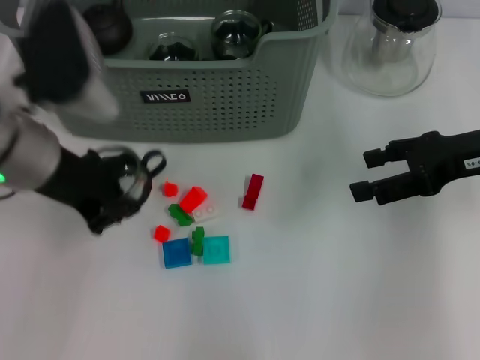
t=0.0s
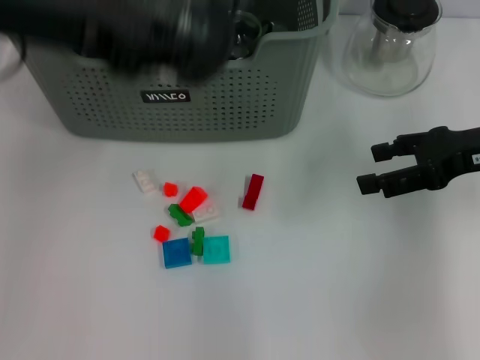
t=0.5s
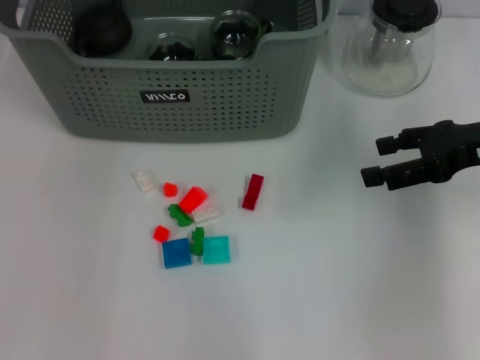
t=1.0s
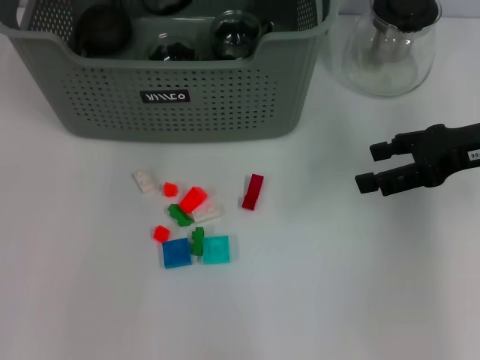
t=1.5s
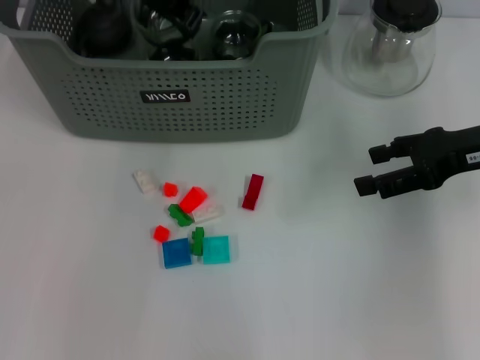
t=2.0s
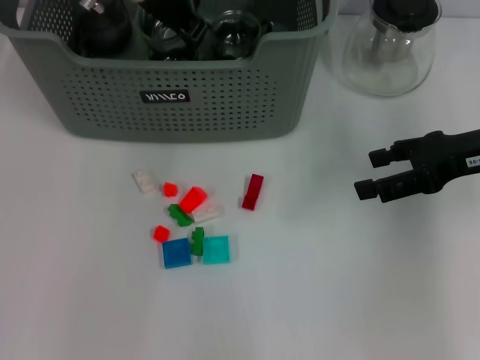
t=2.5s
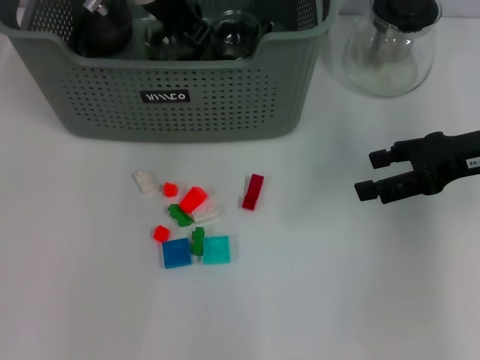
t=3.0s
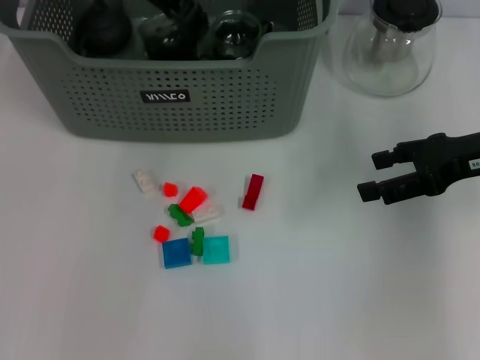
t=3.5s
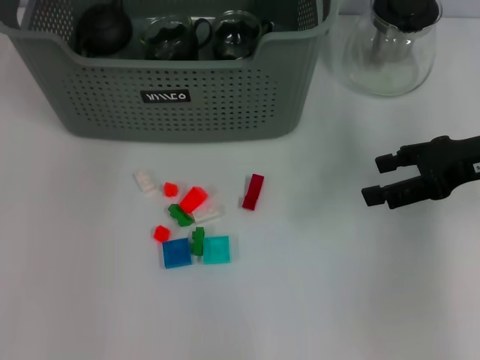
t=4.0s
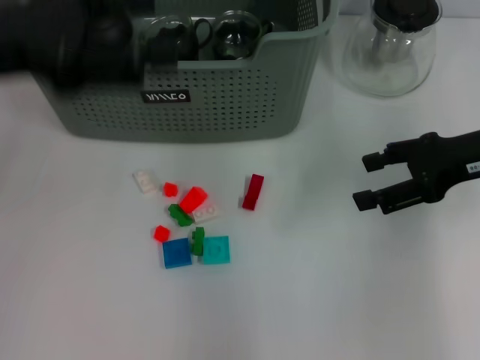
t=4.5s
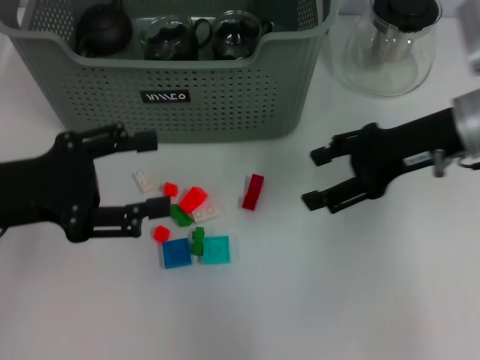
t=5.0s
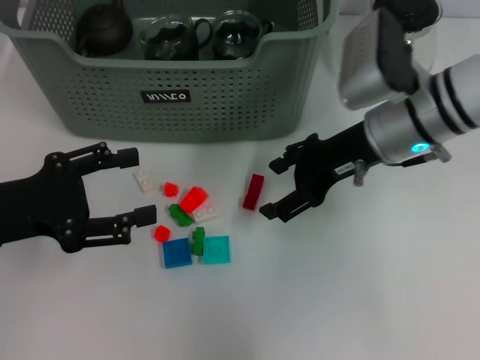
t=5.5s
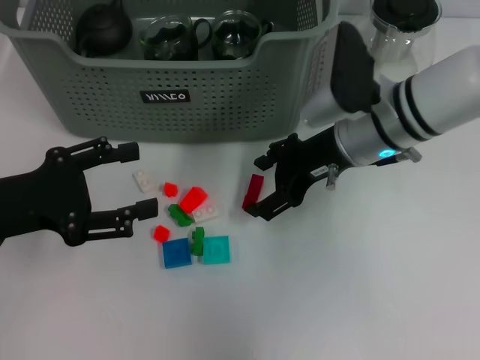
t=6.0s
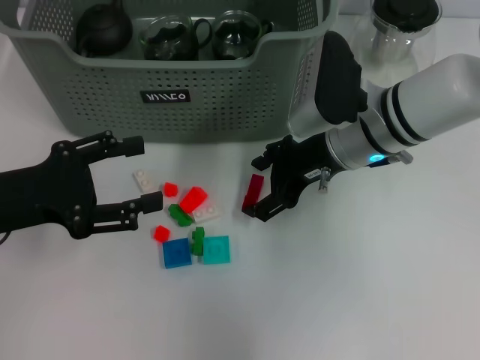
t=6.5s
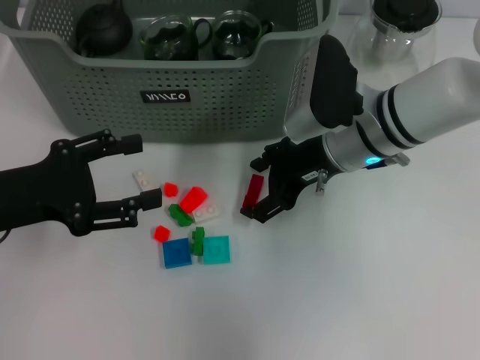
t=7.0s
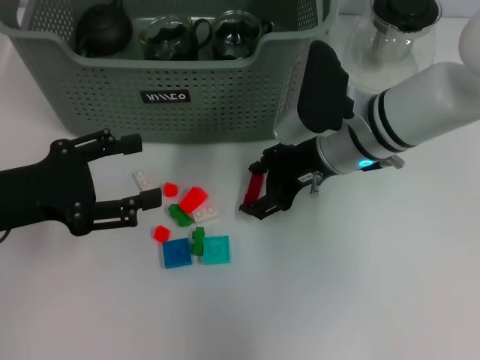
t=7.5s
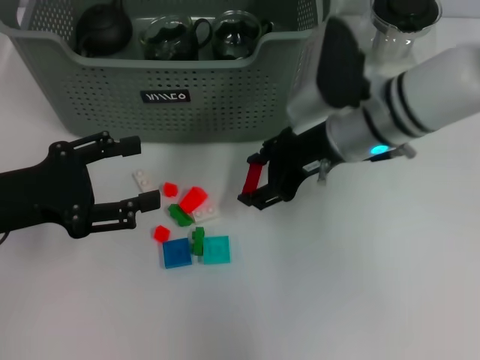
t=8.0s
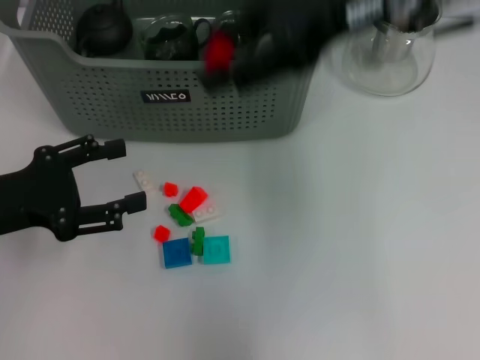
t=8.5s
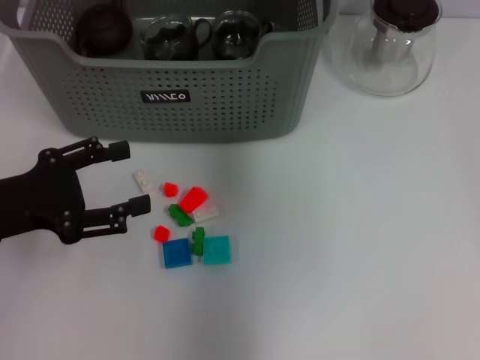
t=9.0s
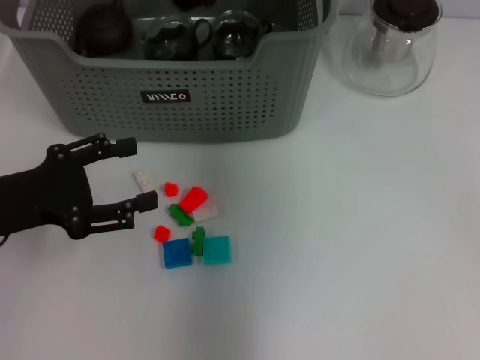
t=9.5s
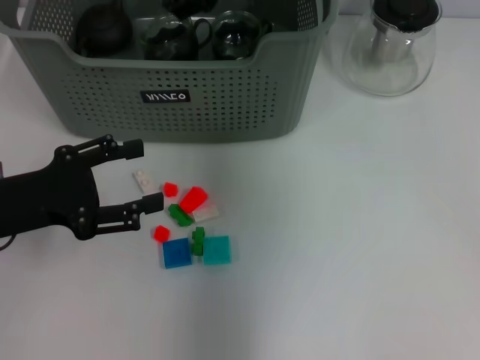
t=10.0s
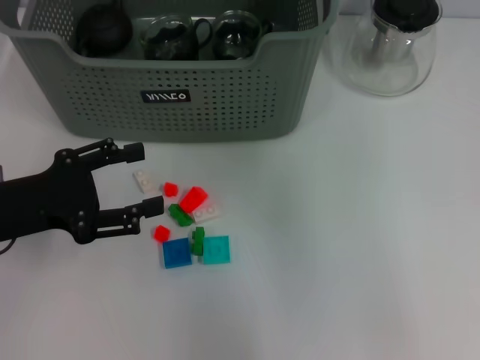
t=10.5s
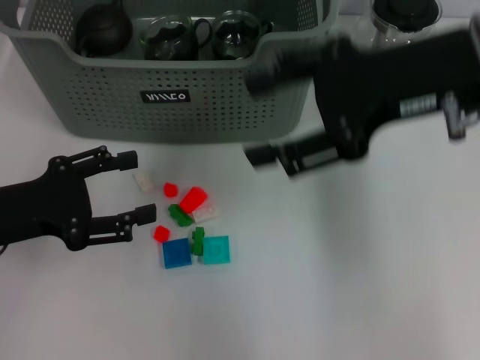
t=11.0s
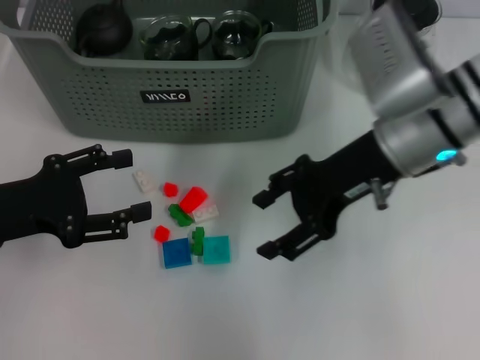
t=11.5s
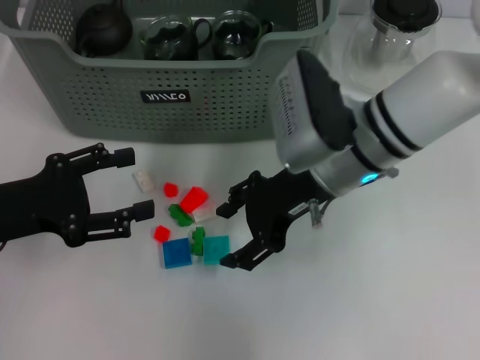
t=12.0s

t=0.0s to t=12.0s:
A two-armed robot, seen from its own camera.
Task of the whole recording: pick up the teacup on the table and place it into the storage bin, pick up the block on the table and place it into the storage bin.
Step, t=0.0s to t=3.5s: Place the cup in the storage box with left gripper.
Step, t=4.0s to t=7.5s: Grasp the red block with right gripper.
Step, t=8.0s to t=10.0s: Place the red block in the storage box with right gripper.
t=0.0s to t=2.0s: The left gripper moves forward and to the right, approximately 20 cm.
t=2.0s to t=4.0s: The left gripper is displaced to the left and upward by approximately 10 cm, and opens its fingers.
t=4.0s to t=6.0s: The left gripper goes approximately 30 cm backward, downward and to the left. The right gripper goes some 15 cm to the left.
t=6.0s to t=8.0s: There are only small adjustments of the grippers.
t=8.0s to t=10.0s: The right gripper goes about 15 cm upward, forward and to the left.
t=10.0s to t=12.0s: The right gripper is displaced backward, downward and to the right by roughly 15 cm.

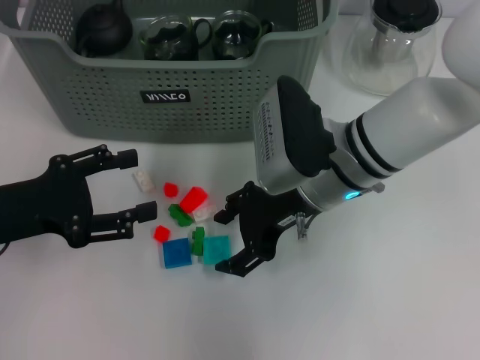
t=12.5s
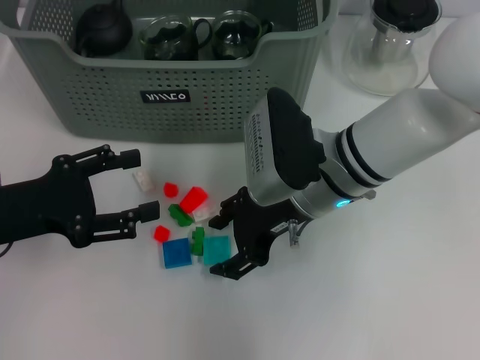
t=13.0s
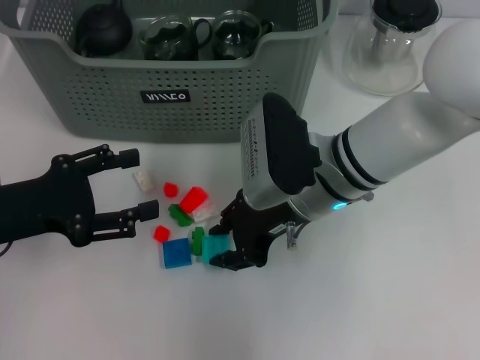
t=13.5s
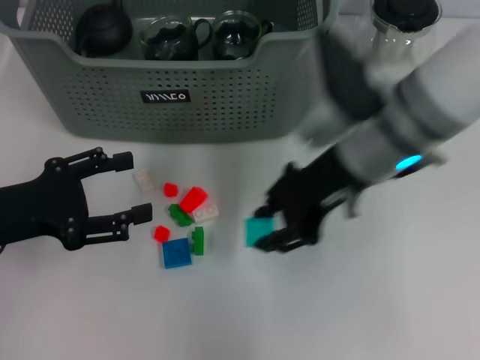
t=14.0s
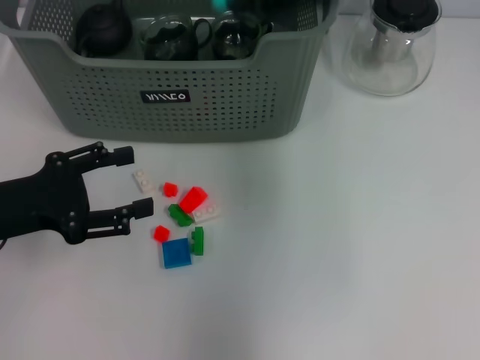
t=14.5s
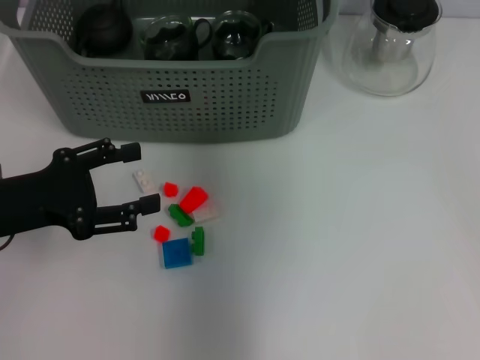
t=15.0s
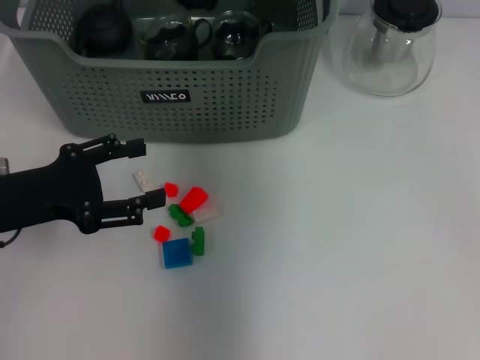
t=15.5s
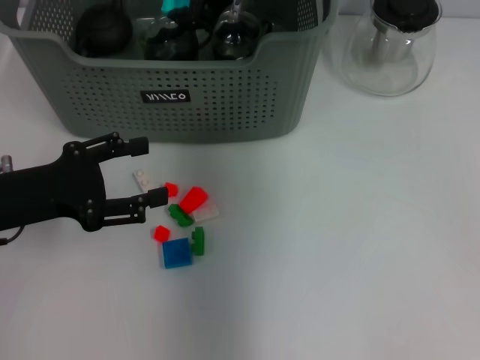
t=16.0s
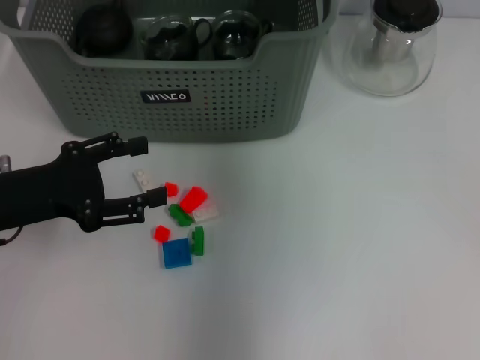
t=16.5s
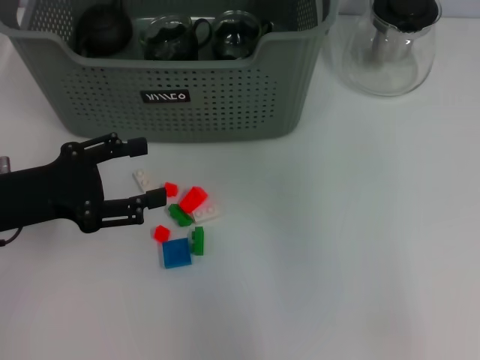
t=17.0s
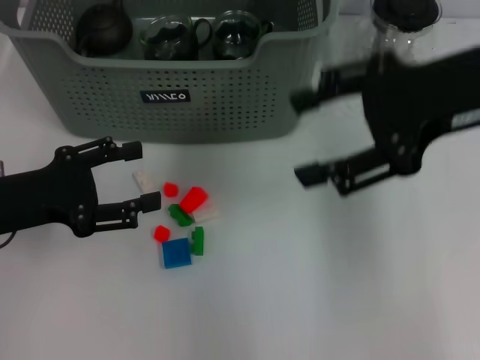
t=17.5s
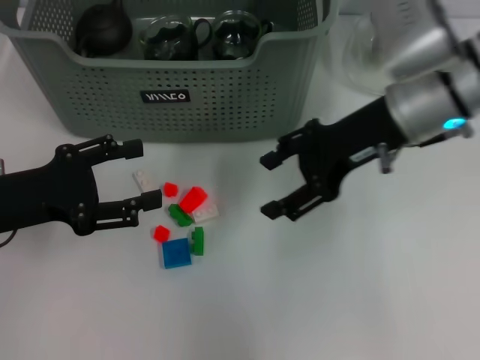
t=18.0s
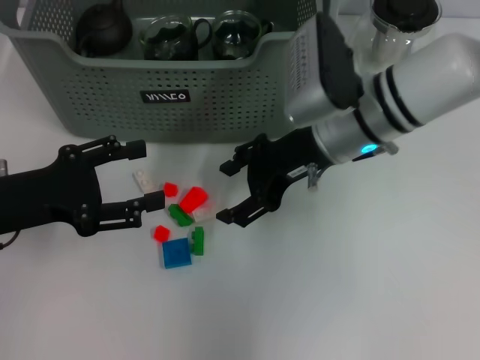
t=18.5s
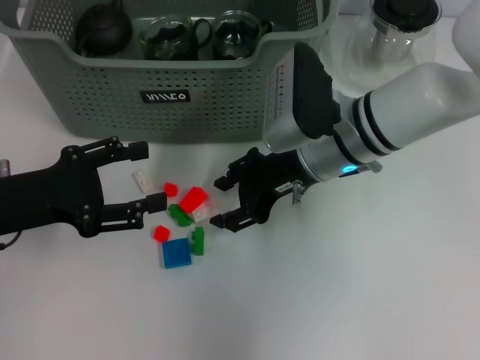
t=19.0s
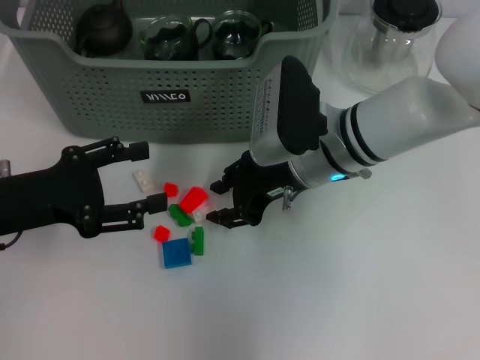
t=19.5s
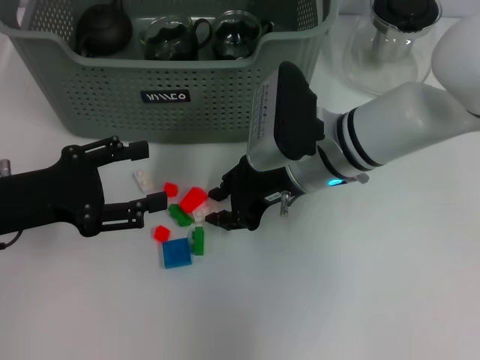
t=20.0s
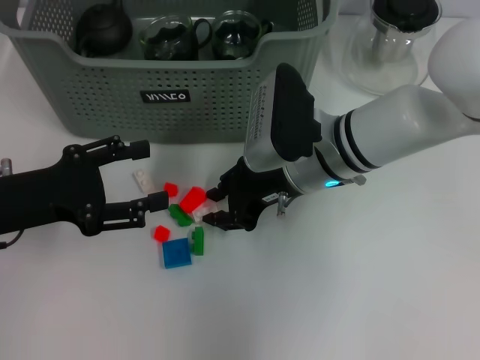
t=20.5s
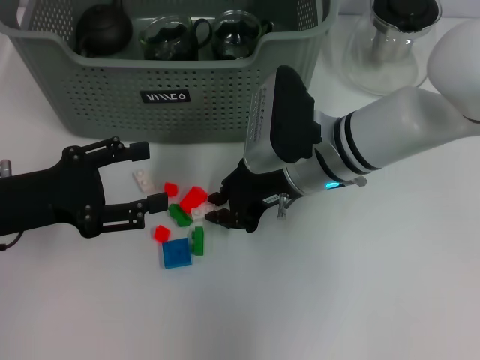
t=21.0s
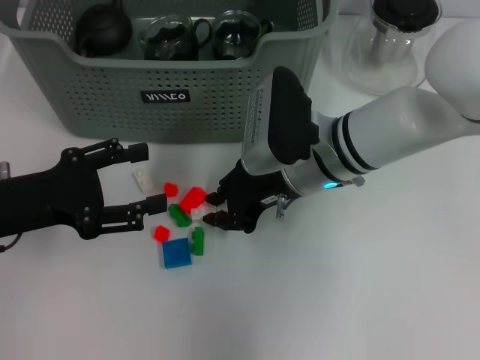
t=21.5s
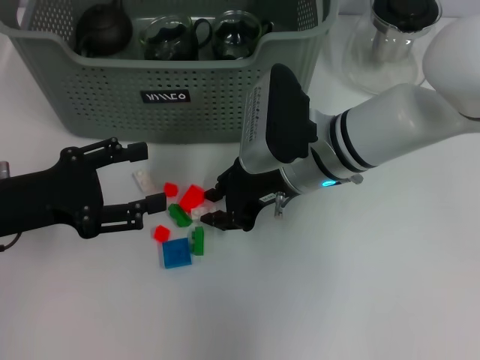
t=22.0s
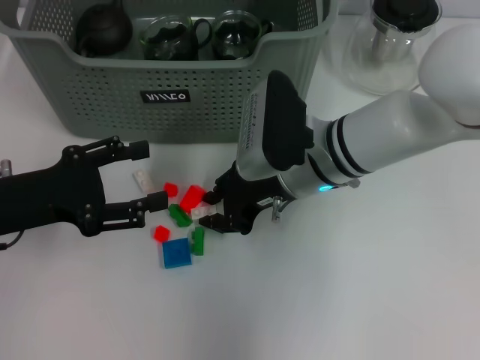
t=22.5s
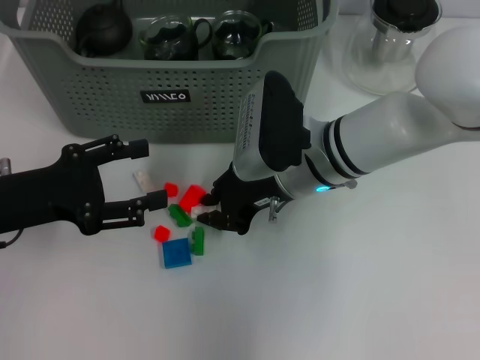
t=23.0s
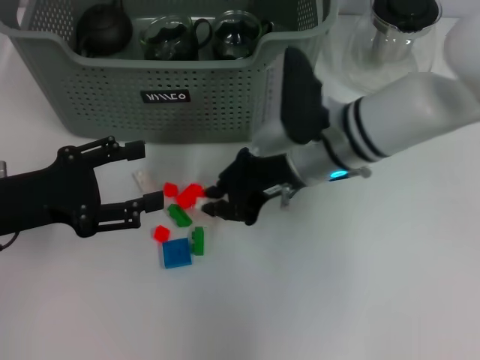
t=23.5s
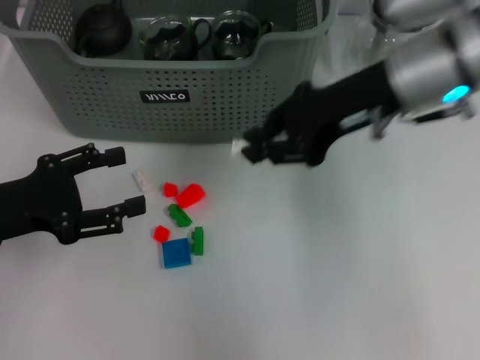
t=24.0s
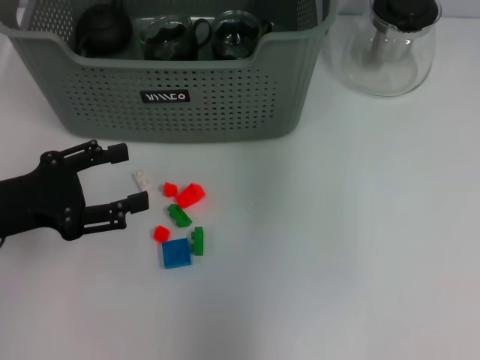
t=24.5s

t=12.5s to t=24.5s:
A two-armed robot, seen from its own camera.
Task of the whole recording: pick up the teacup on the table and place it into the storage bin, pick up the block on the table and place it into the storage bin.
Step, t=13.5s to t=16.0s: Place the light blue block in the storage box with right gripper.
Step, t=16.5s to t=23.0s: Grasp the white block with right gripper.
t=12.5s to t=14.5s: The right gripper moves upward, some 25 cm, and closes up.
t=14.5s to t=16.5s: The right gripper heads to the left, downward and forward, covering about 15 cm.
t=16.5s to t=18.5s: The right gripper travels downward, backward and to the right by about 15 cm.
t=18.5s to t=20.5s: The right gripper closes its fingers.
t=20.5s to t=22.5s: The two grippers keep their place.
t=22.5s to t=24.5s: The right gripper is displaced upward by about 25 cm.

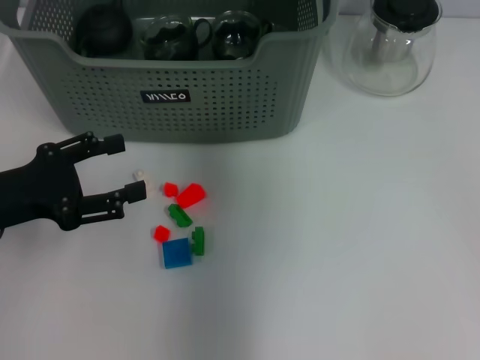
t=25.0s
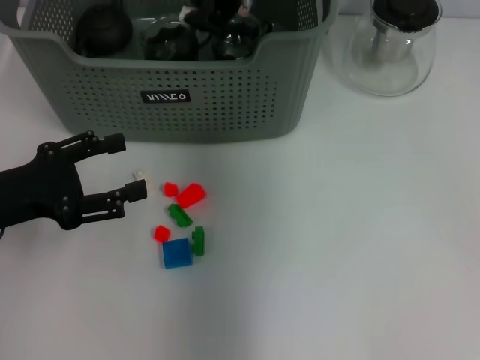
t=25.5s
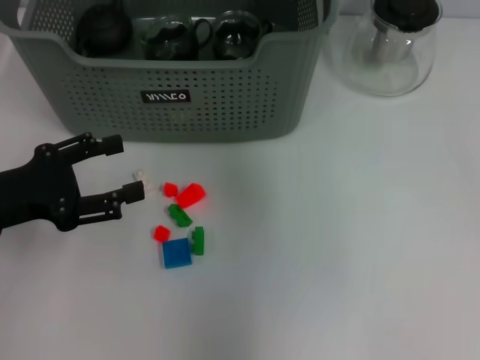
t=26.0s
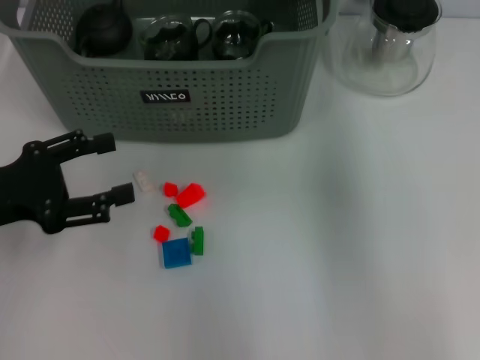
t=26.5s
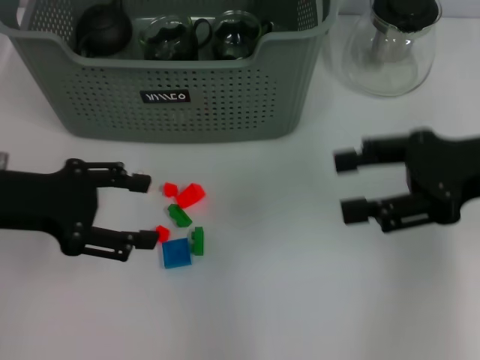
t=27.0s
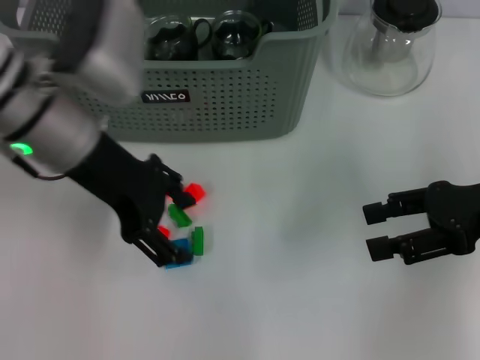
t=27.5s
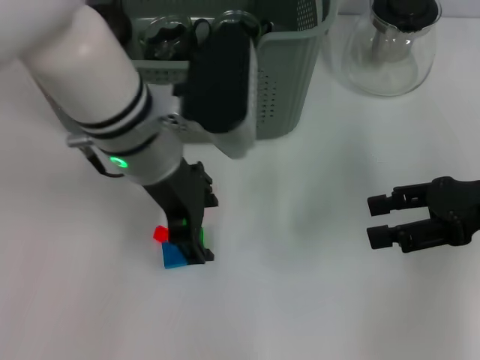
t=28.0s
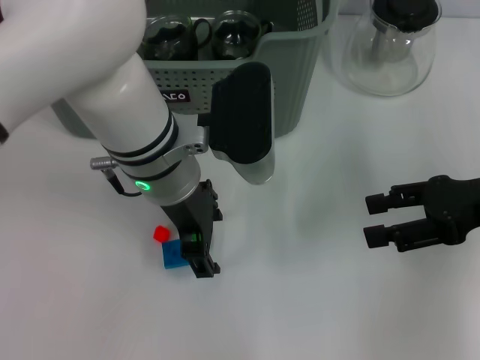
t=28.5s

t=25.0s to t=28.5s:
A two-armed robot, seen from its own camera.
Task of the whole recording: pick up the teacup on the table and place it into the storage bin, pick up the block on the table and place it into the storage bin.
t=25.0s to t=27.0s: The left gripper ends up some 5 cm from where it was. Meanwhile the right gripper goes some 30 cm to the right, backward and downward, and opens up.
t=27.0s to t=28.5s: The left gripper goes some 20 cm to the right. The right gripper changes place by approximately 5 cm.
